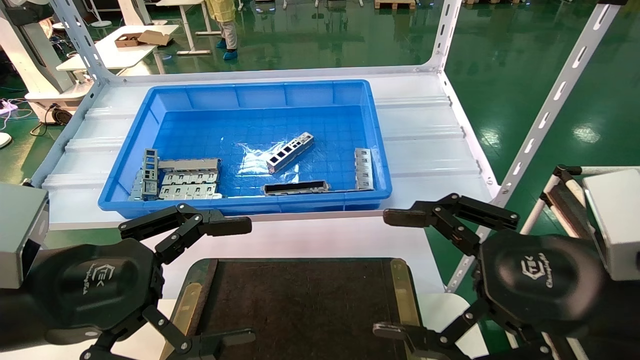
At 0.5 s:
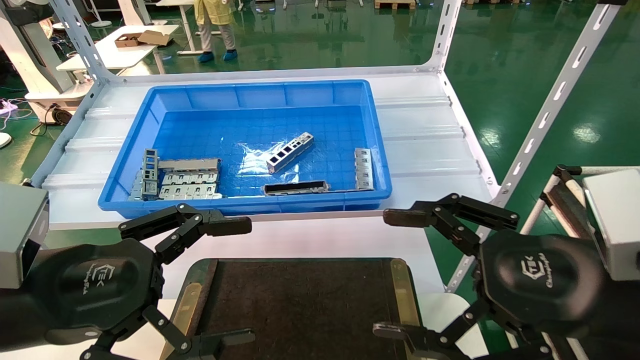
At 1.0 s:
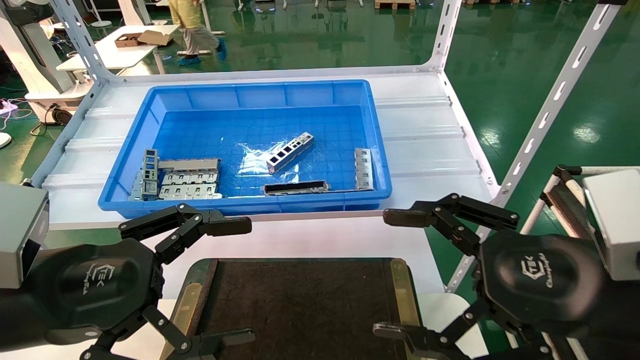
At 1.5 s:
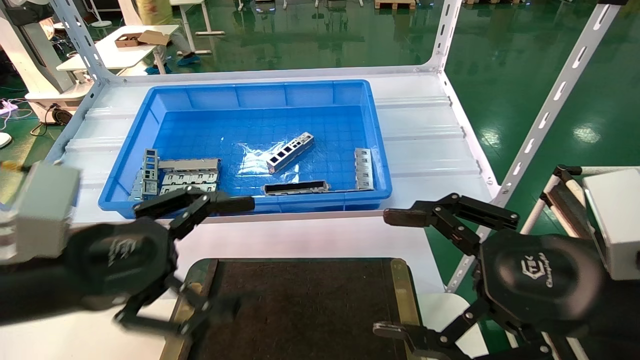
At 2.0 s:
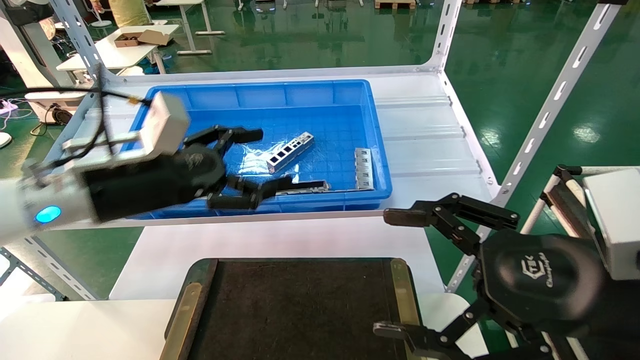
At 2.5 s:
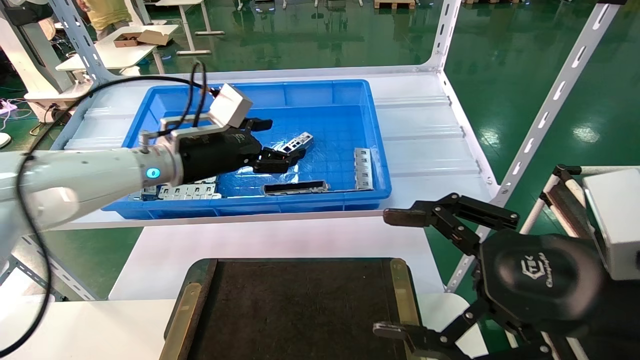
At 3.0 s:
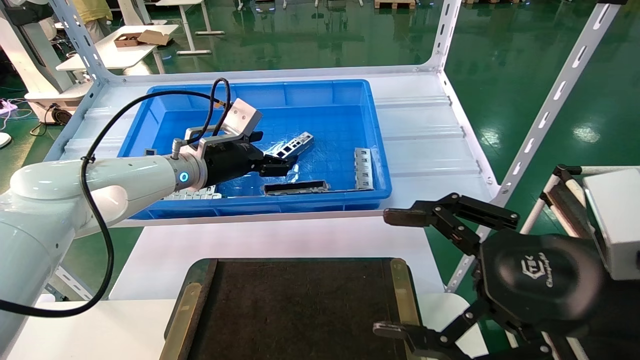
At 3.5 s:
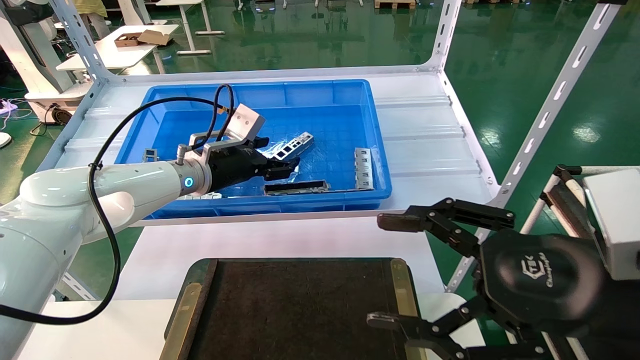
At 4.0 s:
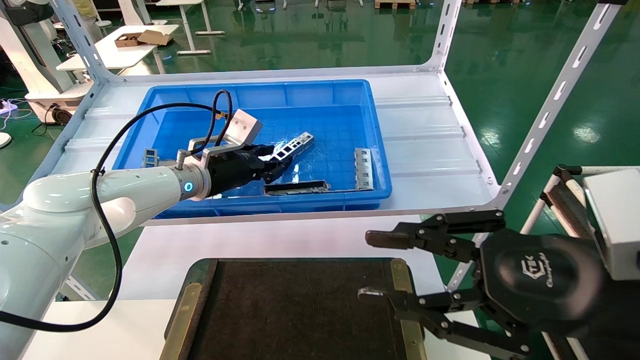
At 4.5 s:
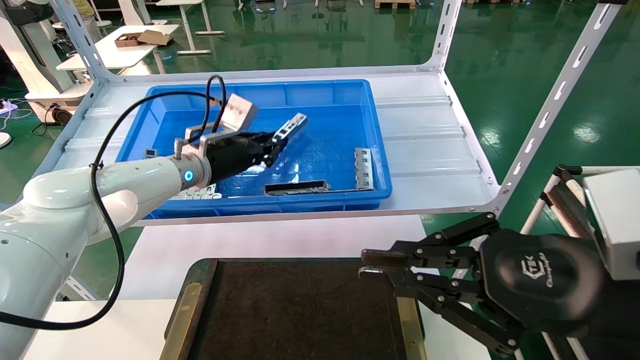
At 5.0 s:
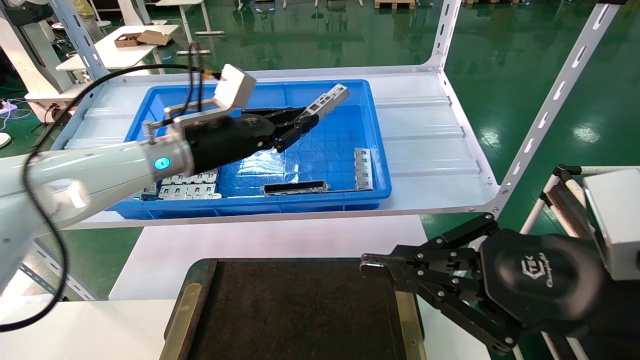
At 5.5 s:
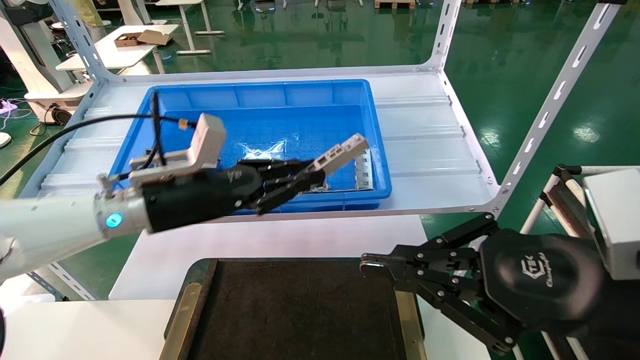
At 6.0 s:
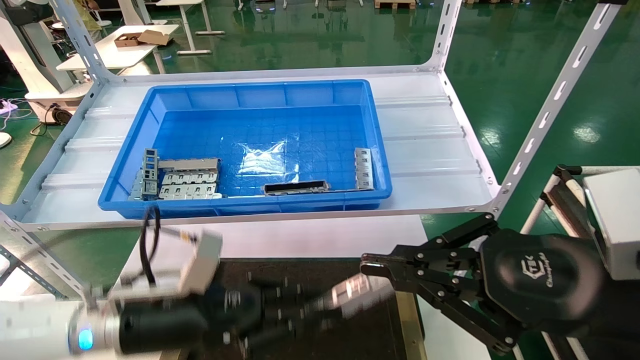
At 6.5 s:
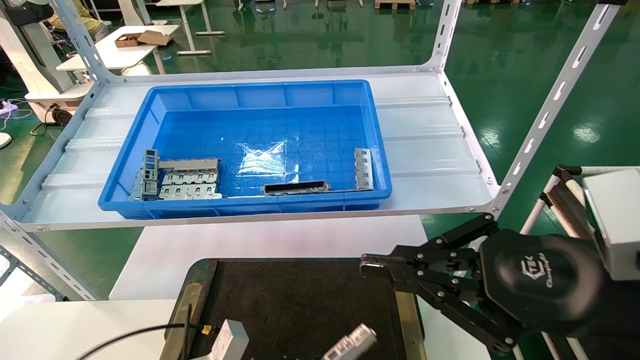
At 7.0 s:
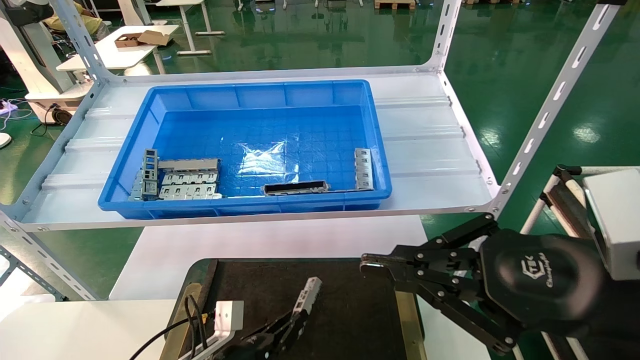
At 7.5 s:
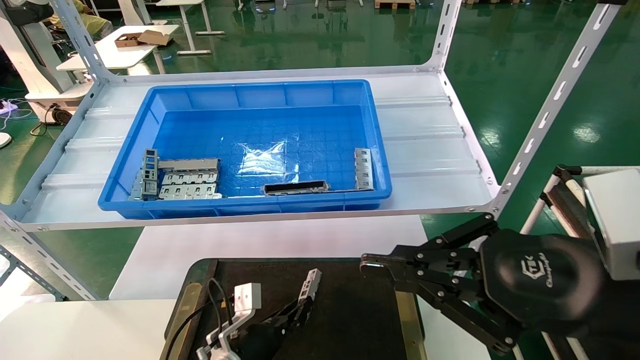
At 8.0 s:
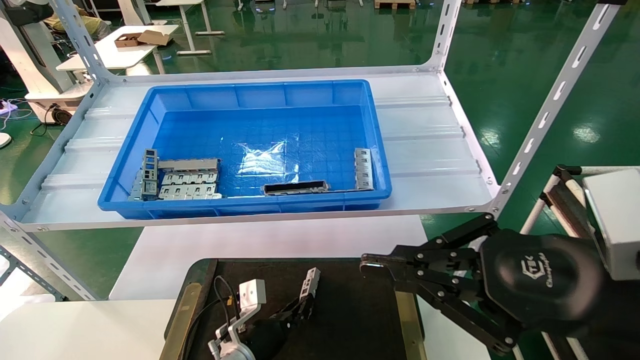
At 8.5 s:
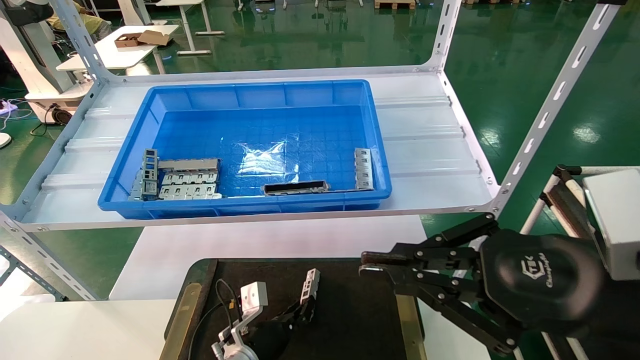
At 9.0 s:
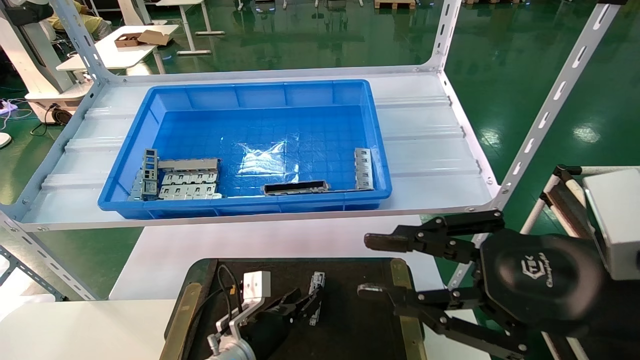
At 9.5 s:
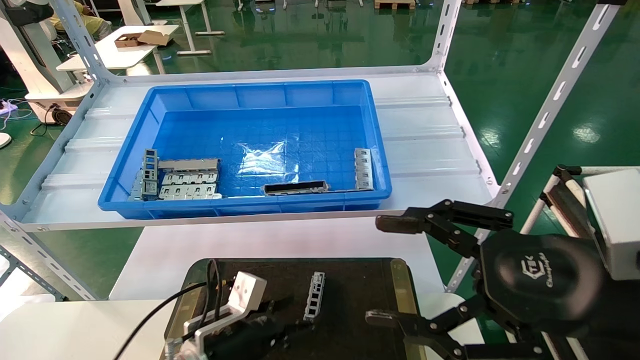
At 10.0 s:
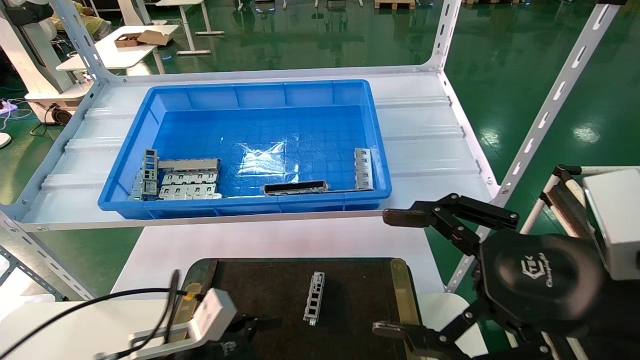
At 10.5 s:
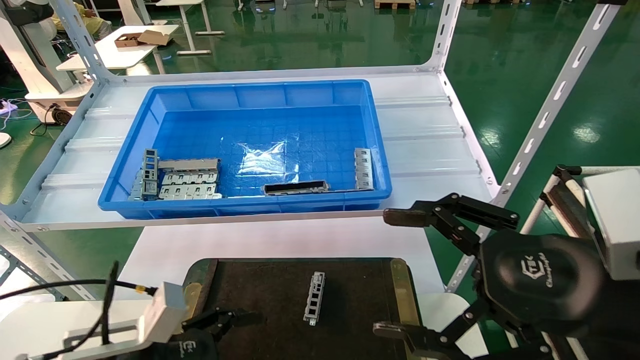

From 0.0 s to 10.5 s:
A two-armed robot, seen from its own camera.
Task of the whole recording: Grasp the part with one hand and place it on the black container.
Step, from 1.5 s to 4.0 s: Pick up the front USB bracket from the feeding area.
Step, from 4.5 s to 8.5 s: Place the front USB bracket into the box.
From 0.0 s to 2.0 s: The left gripper goes about 15 cm forward.
From 2.0 s to 4.0 s: The right gripper closes. The left gripper is displaced forward by roughly 15 cm, and closes up.
From 4.0 s to 6.5 s: The left gripper is displaced downward and backward by some 30 cm, and closes up. Meanwhile the right gripper closes up.
From 6.5 s to 8.5 s: The left gripper heads forward, to the right and downward, covering about 15 cm.
From 8.5 s to 10.5 s: The right gripper opens. Meanwhile the left gripper heads backward, upward and to the left, covering some 25 cm, and opens up.

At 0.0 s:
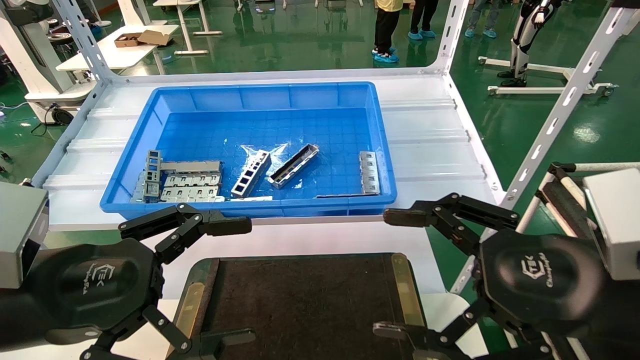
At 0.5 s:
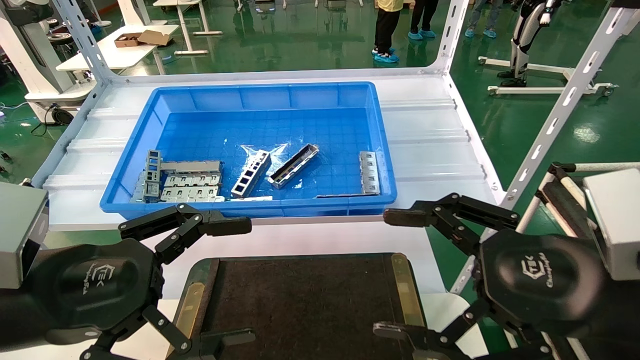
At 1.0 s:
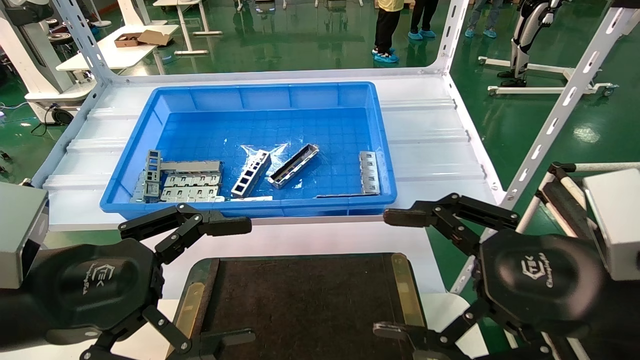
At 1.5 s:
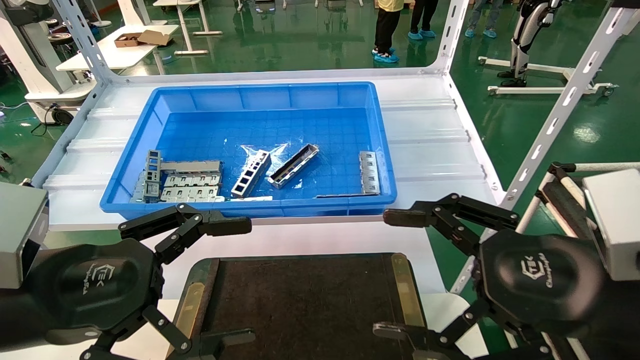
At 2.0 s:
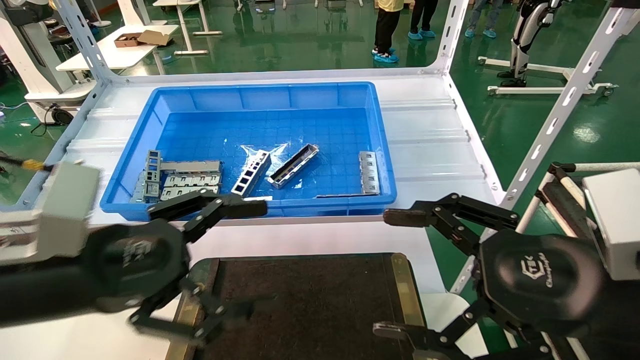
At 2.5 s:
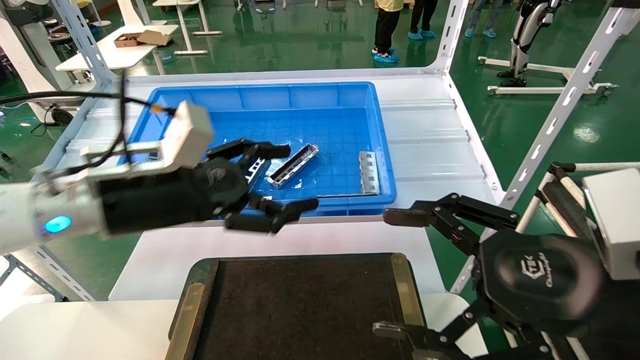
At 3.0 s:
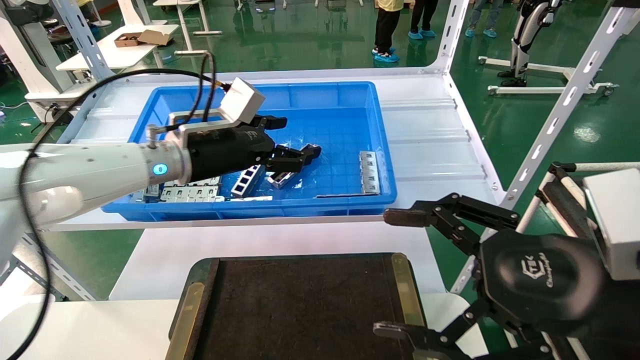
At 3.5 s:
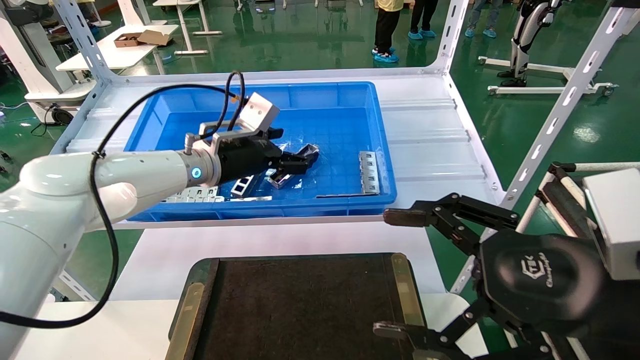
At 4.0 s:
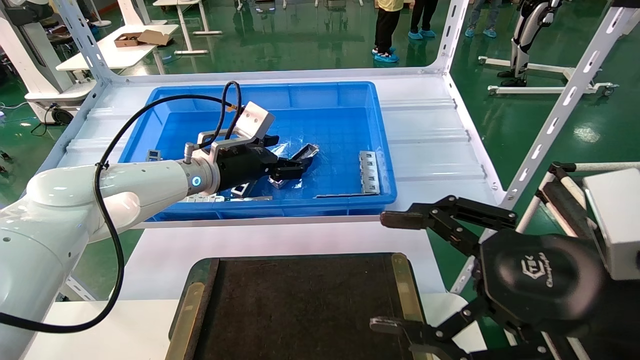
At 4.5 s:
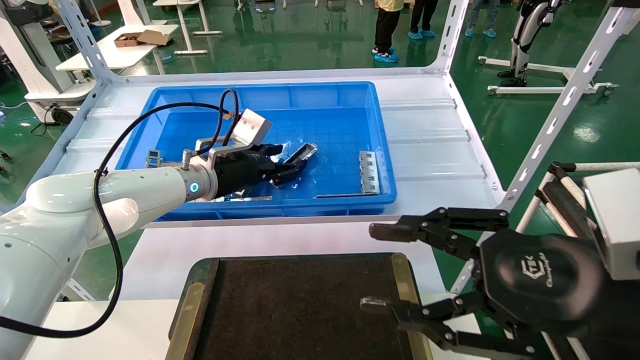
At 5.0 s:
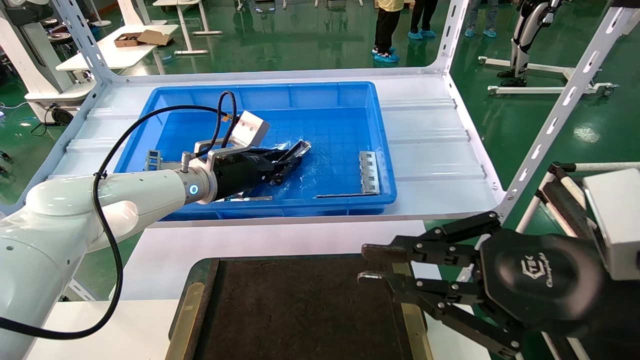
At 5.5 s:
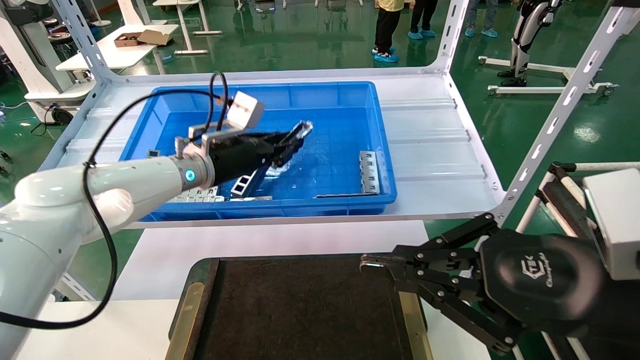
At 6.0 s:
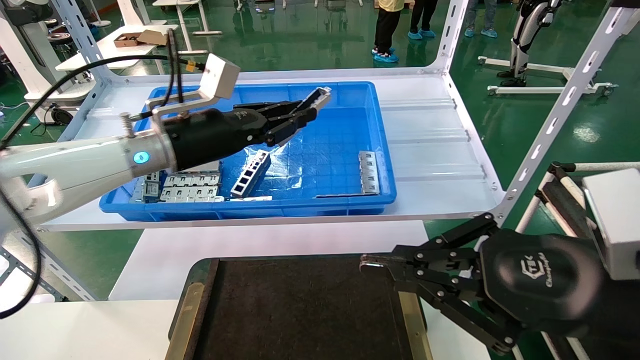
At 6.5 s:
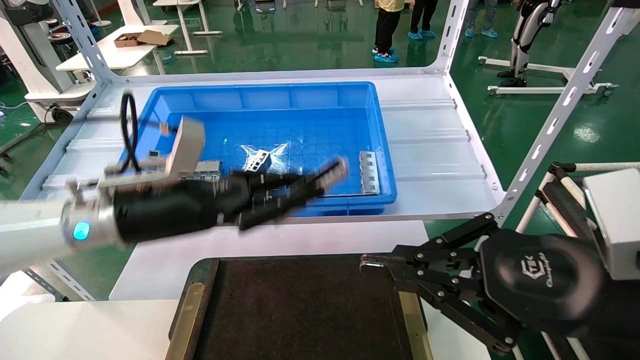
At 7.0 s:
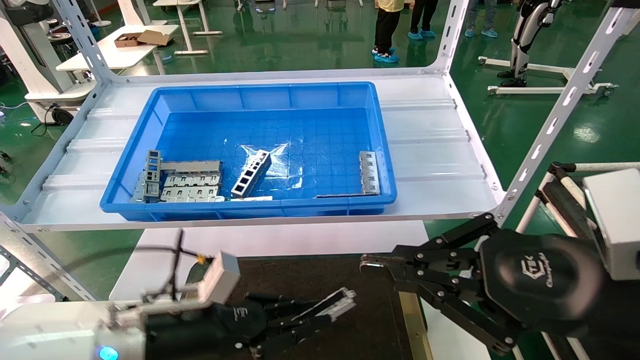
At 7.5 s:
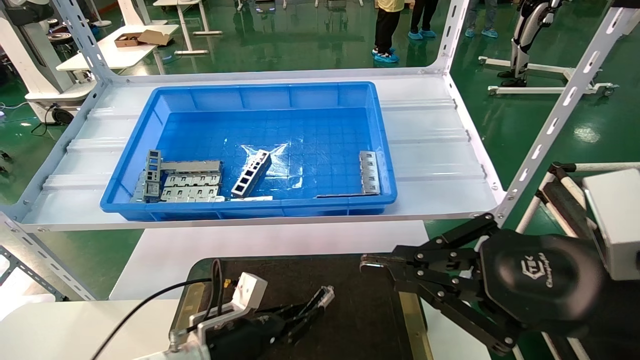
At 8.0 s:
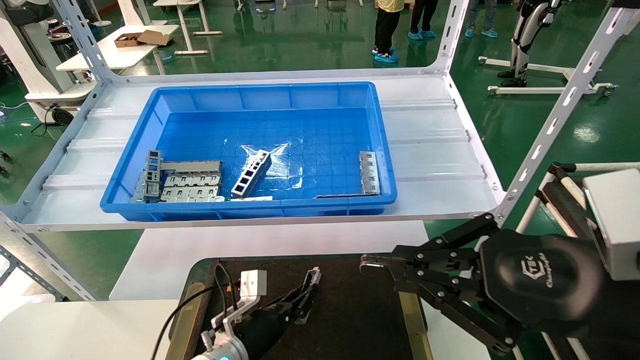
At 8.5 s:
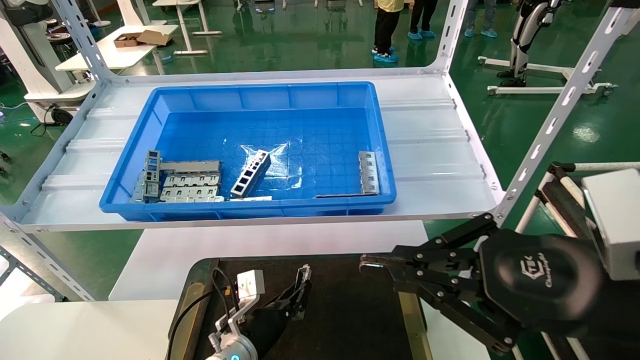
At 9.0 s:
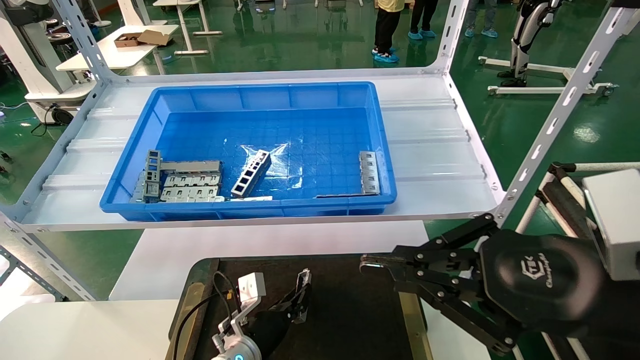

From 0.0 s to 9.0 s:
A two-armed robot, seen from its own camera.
Task of the whole recording: Grasp the part with one hand and place it on the black container.
Step, from 2.0 s to 5.0 s: Pick up the front USB bracket from the feeding area.
From 0.0 s to 2.0 s: There are only small adjustments of the grippers.
From 2.0 s to 4.5 s: The left gripper is displaced forward by some 25 cm, and closes.
From 4.5 s to 7.0 s: The left gripper moves backward and downward, approximately 25 cm, and closes. Meanwhile the right gripper closes its fingers.
From 7.0 s to 9.0 s: The left gripper goes approximately 20 cm downward, forward and to the right.
